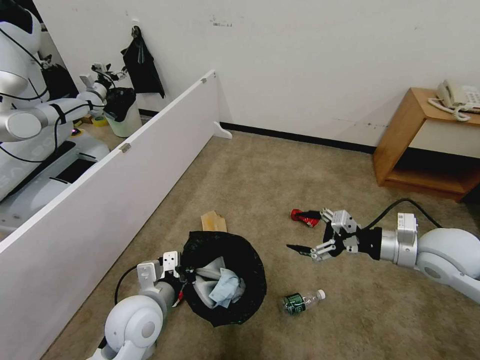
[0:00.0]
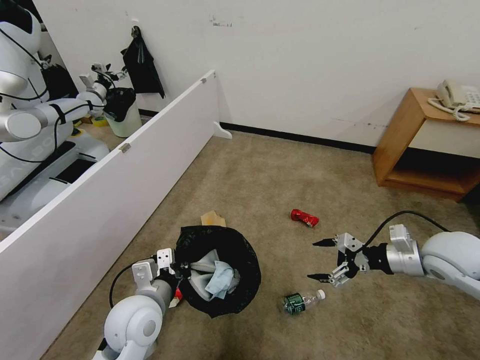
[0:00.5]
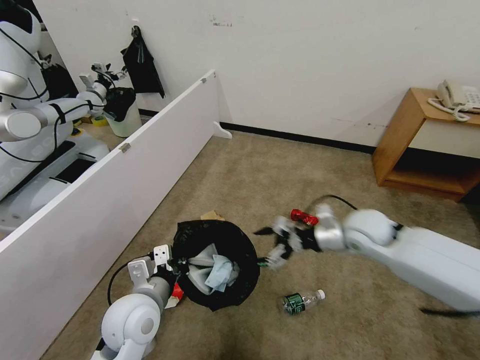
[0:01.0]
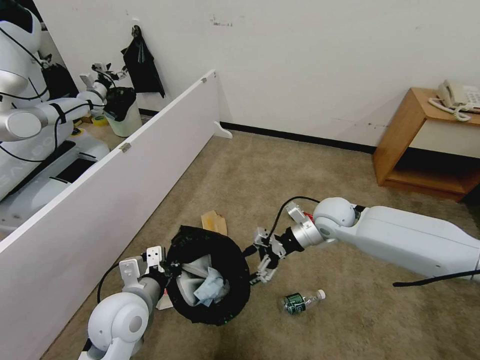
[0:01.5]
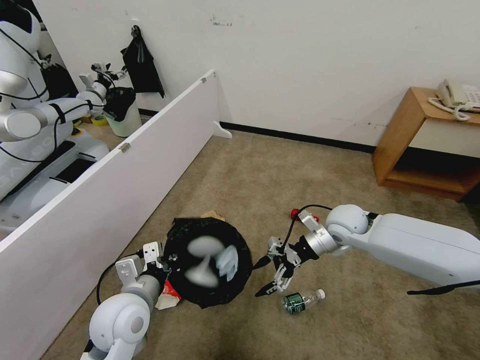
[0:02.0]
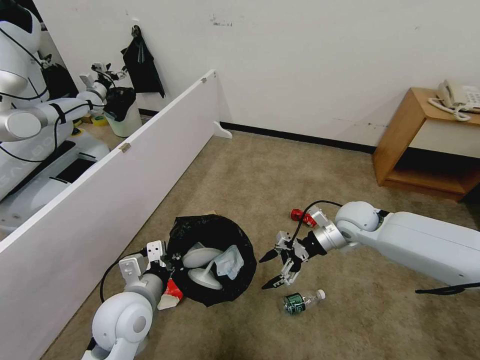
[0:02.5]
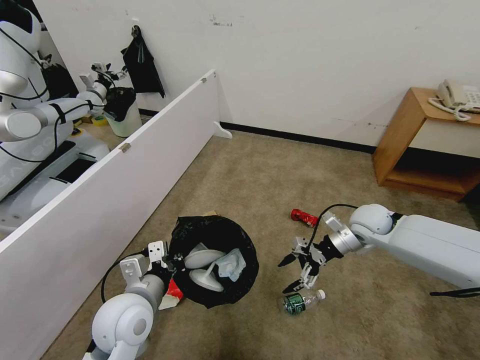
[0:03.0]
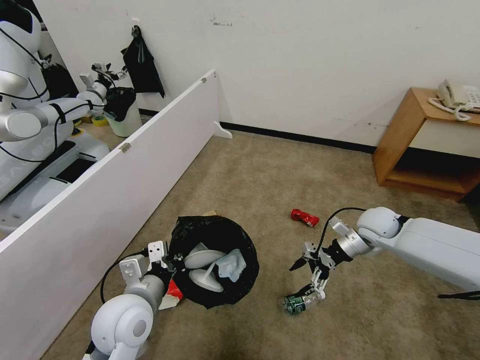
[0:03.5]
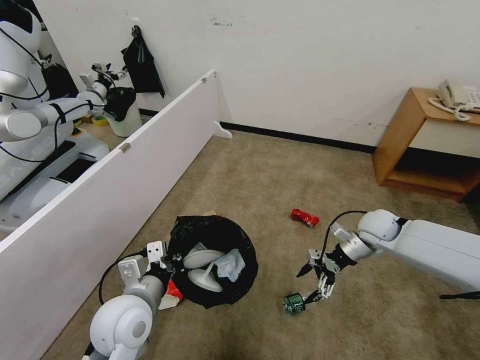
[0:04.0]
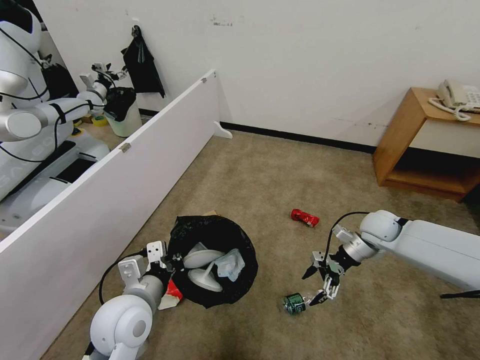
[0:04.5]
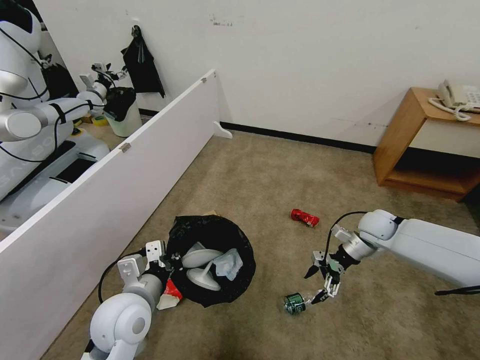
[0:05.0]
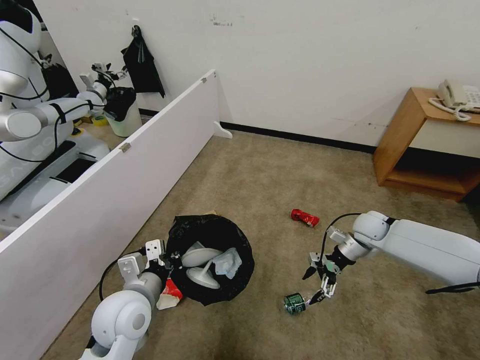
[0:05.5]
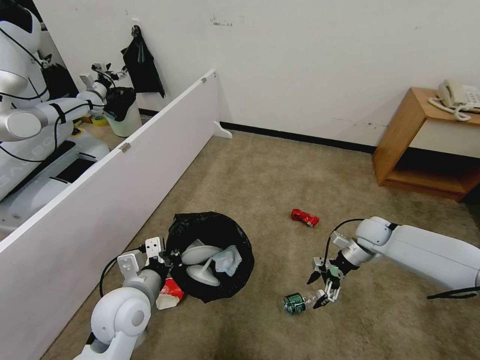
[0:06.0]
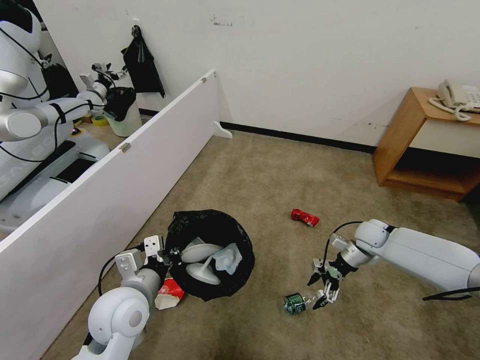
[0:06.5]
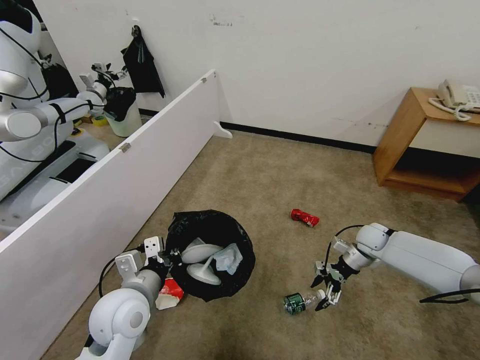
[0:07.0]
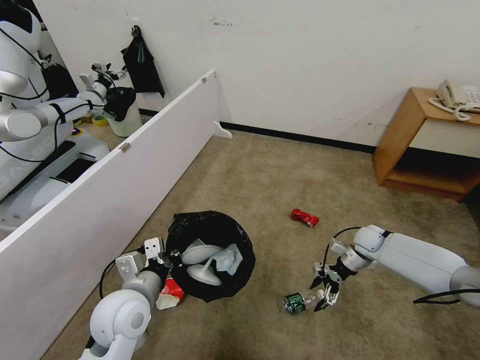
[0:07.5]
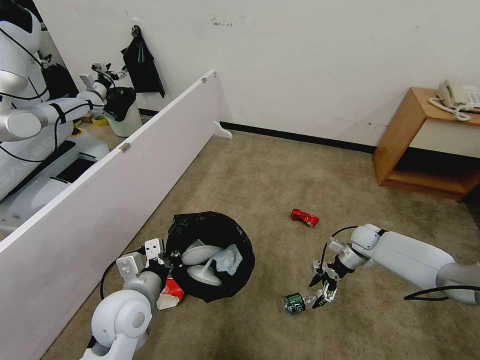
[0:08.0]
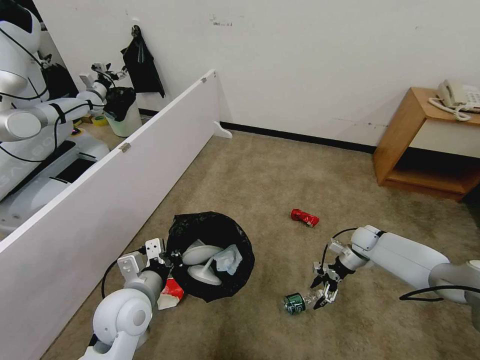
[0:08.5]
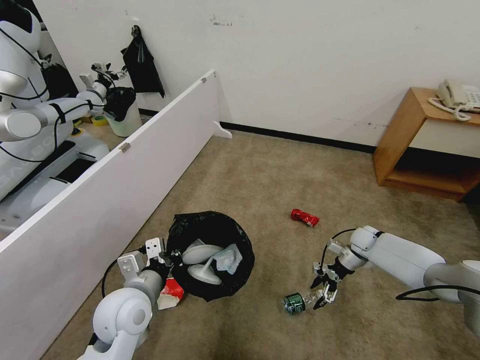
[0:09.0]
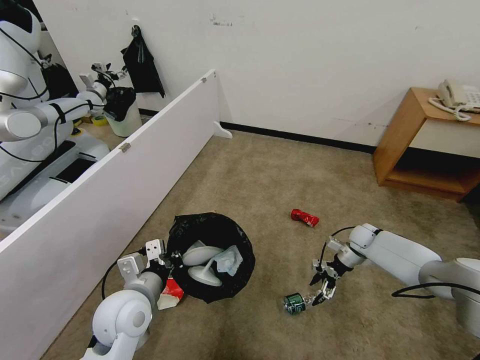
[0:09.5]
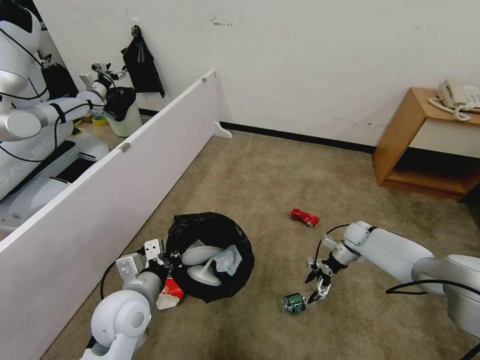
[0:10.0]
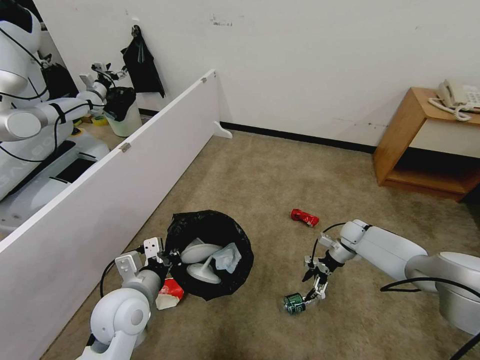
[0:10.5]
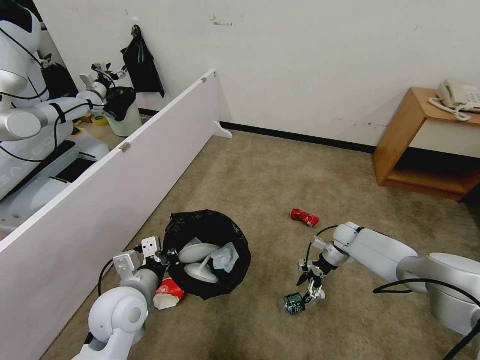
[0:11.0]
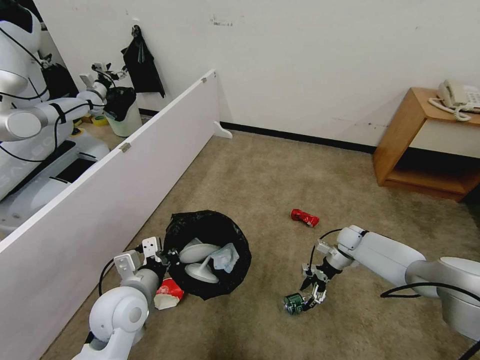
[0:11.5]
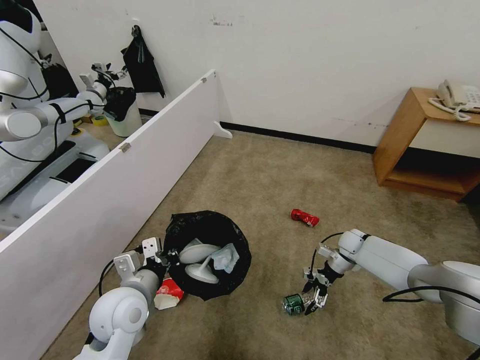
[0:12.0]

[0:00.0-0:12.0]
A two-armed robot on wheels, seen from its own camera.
Task of the whole recording: Pick up the trash bin, then pick up the garbage from the floor and place it into the trash bin.
0:00.0 to 0:02.0: The right gripper goes about 20 cm forward, to the left and downward.
0:02.0 to 0:04.0: The right gripper travels to the right by about 10 cm.
0:04.0 to 0:06.0: The right gripper shifts roughly 5 cm downward.
0:06.0 to 0:08.0: The right gripper heads downward, covering approximately 5 cm.
0:08.0 to 0:12.0: There are only small adjustments of the grippers.

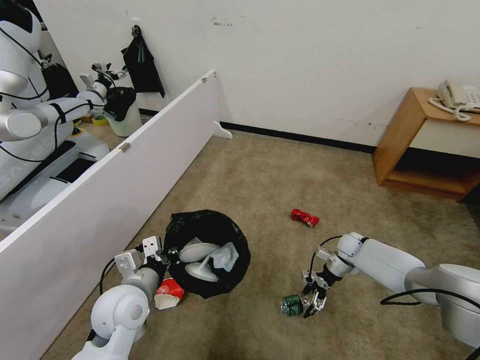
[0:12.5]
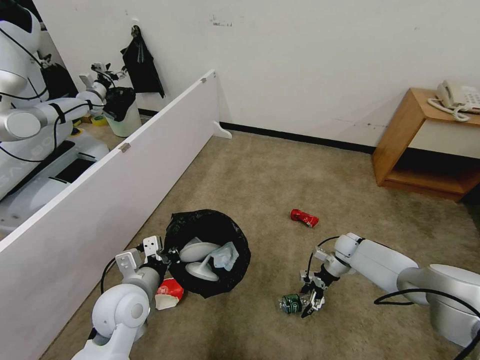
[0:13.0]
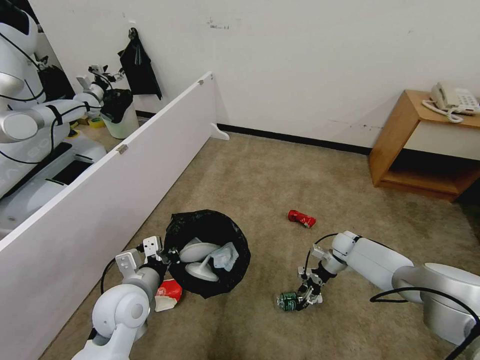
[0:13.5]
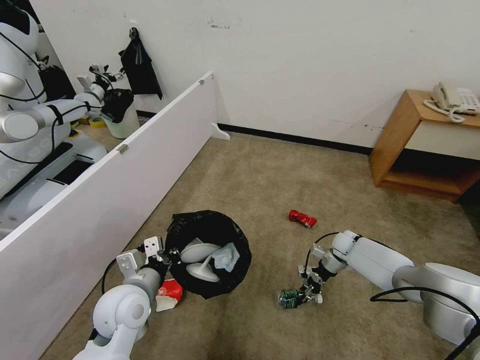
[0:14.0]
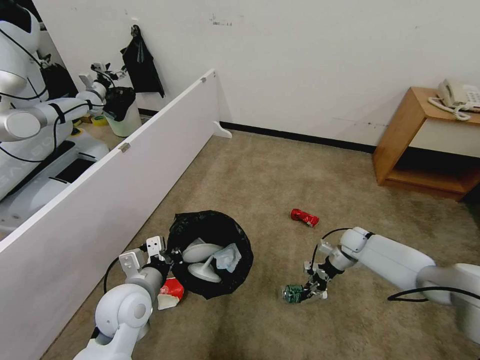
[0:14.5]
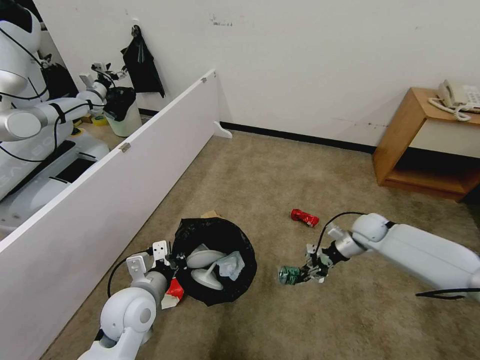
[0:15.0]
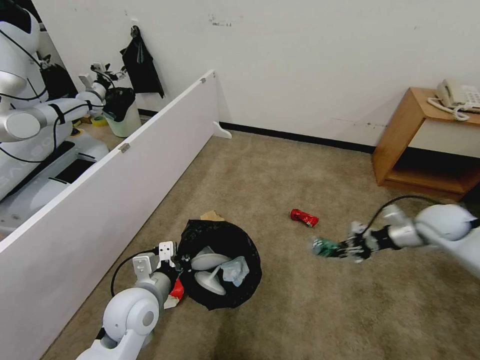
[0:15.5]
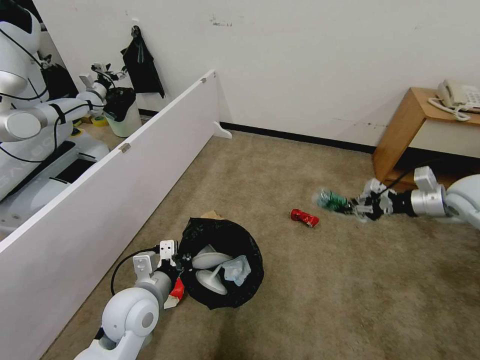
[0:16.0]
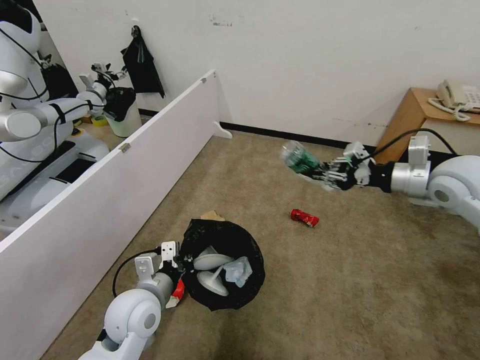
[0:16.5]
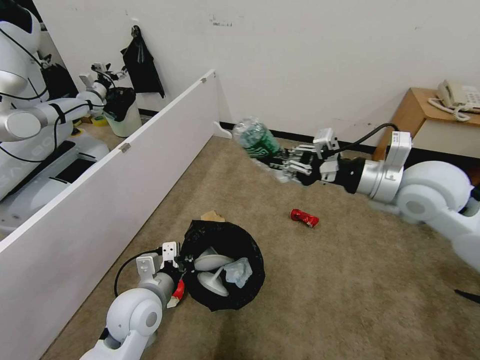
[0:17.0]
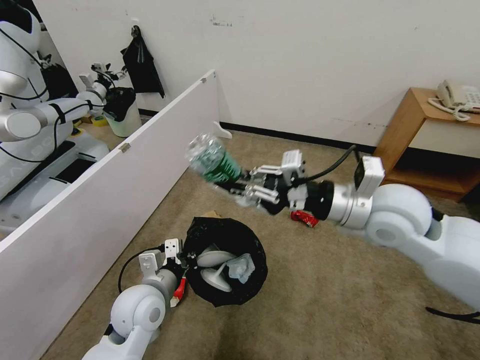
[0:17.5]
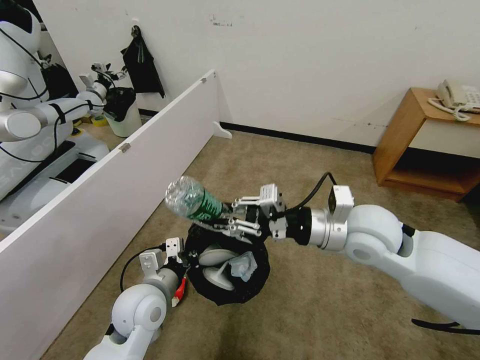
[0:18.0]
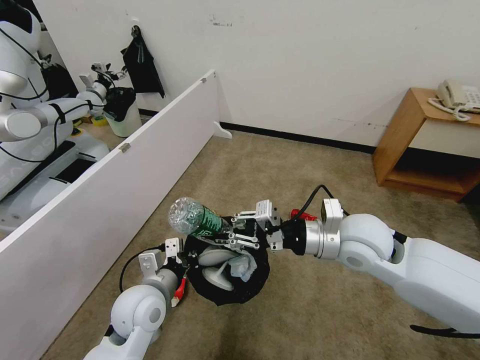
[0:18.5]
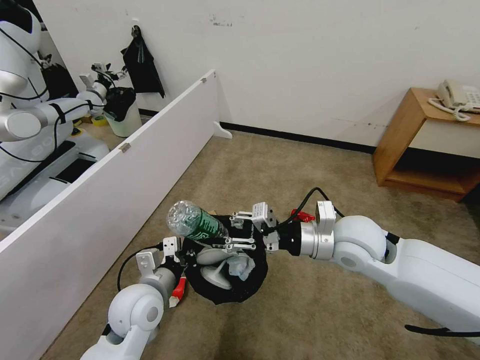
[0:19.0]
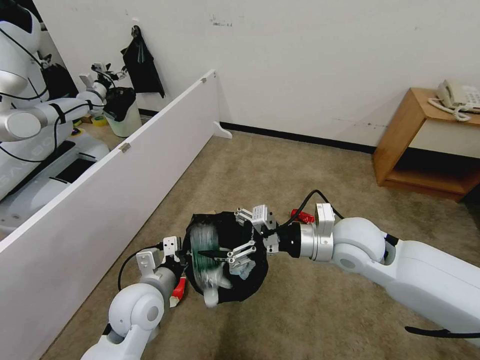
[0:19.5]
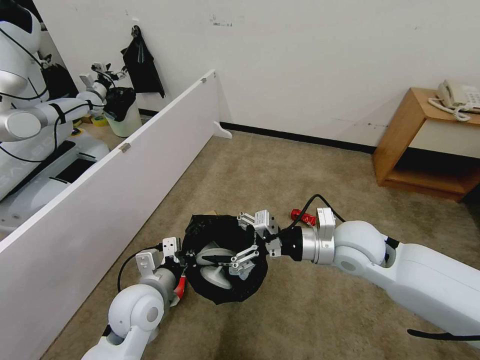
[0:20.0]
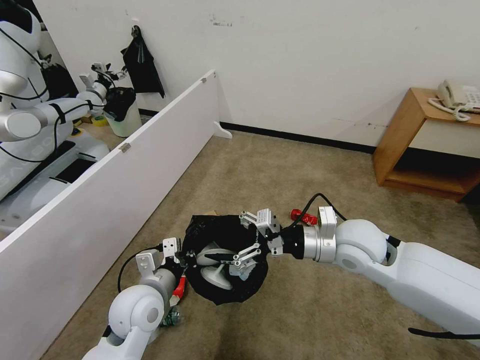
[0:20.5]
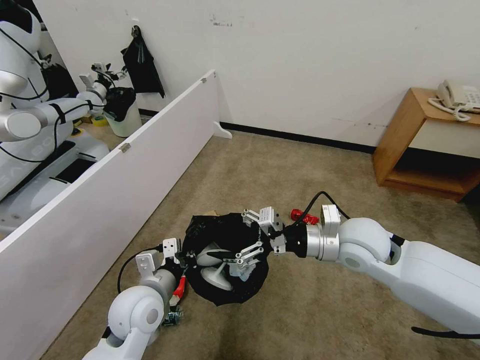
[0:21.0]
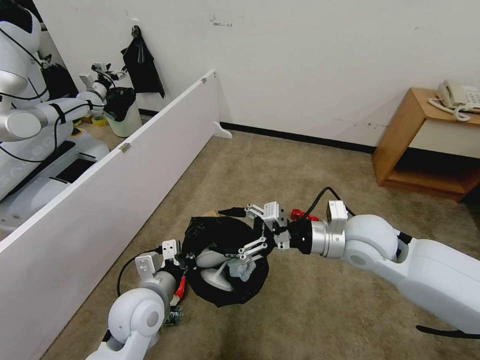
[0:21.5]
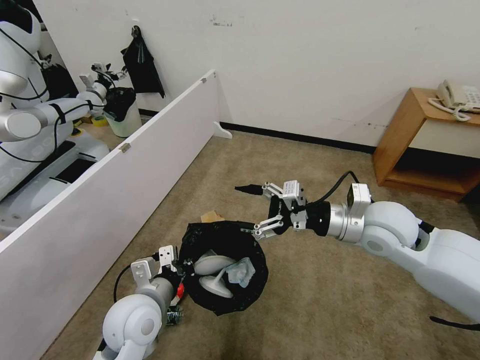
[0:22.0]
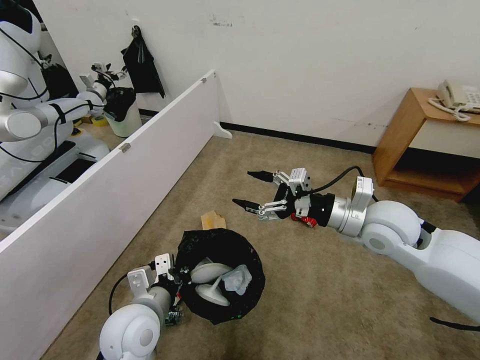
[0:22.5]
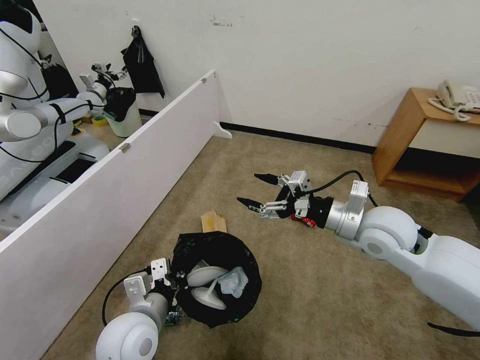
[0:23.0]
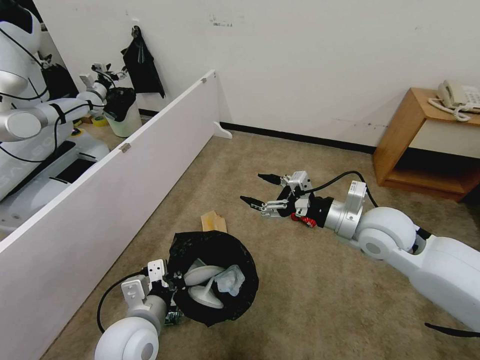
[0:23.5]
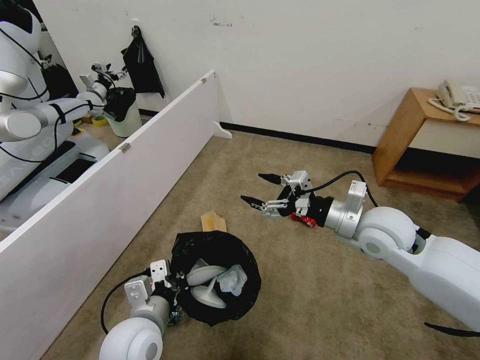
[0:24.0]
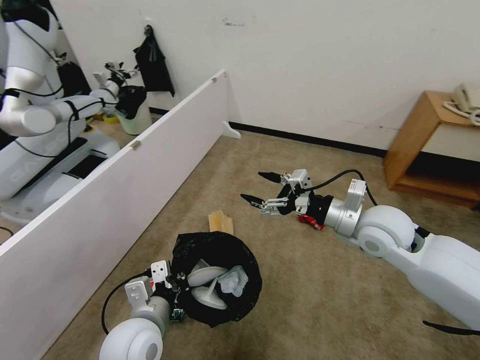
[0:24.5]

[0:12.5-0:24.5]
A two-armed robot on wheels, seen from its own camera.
Task of the whole recording: Pick up the trash bin, then pick up the garbage from the floor and place it into the trash bin.
0:12.5 to 0:14.5: The right gripper closes.
0:14.5 to 0:16.5: The right gripper travels upward by approximately 35 cm.
0:16.5 to 0:18.5: The right gripper shifts some 20 cm to the left and downward.
0:18.5 to 0:20.5: The right gripper opens.
0:20.5 to 0:22.5: The right gripper changes place by some 5 cm.

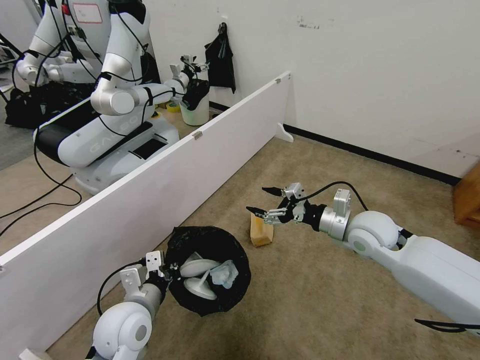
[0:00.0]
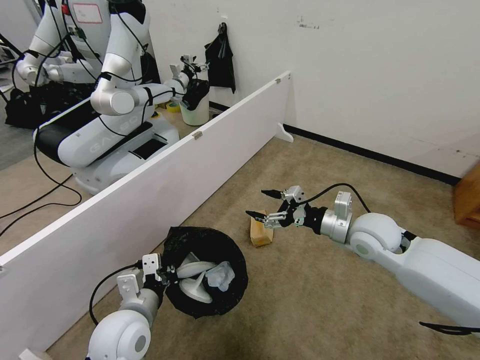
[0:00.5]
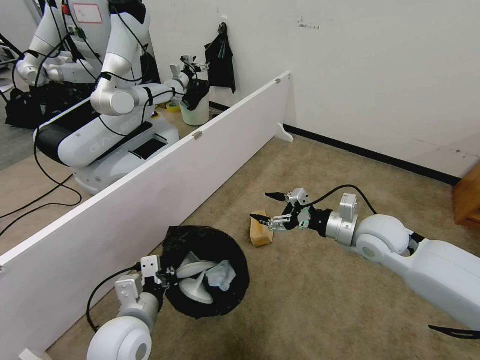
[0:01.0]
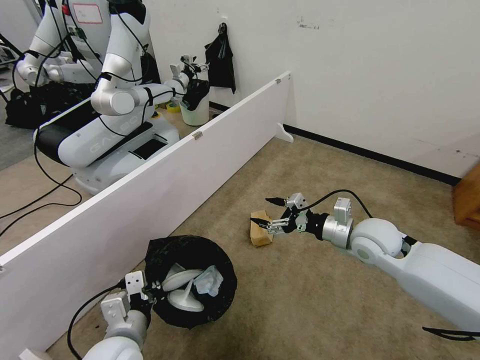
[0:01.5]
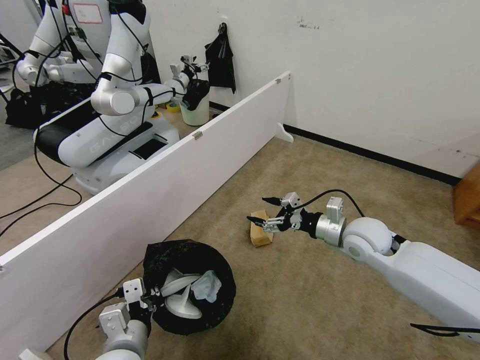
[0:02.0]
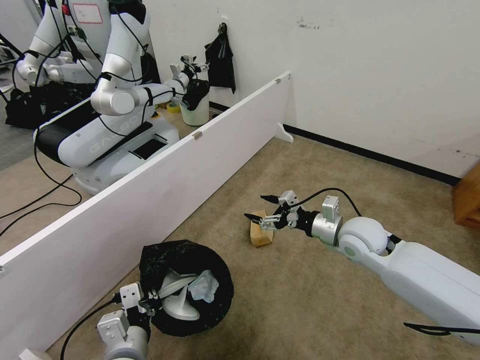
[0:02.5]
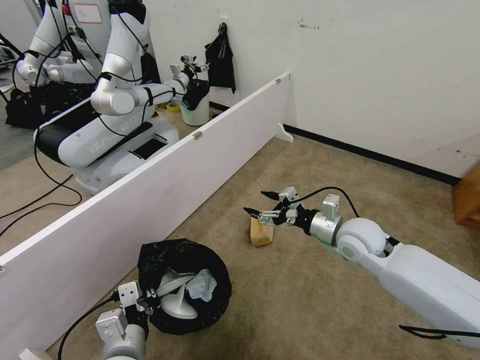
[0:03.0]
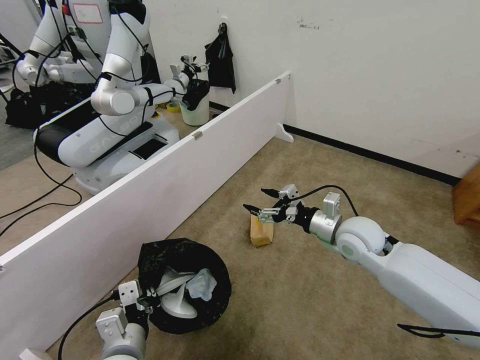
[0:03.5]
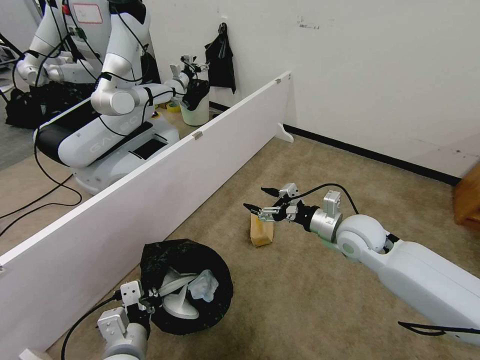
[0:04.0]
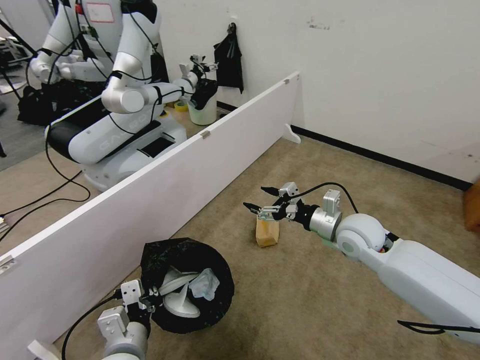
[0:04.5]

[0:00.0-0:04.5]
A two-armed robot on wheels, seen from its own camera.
Task of the whole recording: Pick up the trash bin, then pick up the garbage from the floor and place it into the trash bin.
0:00.0 to 0:02.0: The left gripper moves backward, some 10 cm.
0:02.0 to 0:04.5: The grippers make only small movements.
